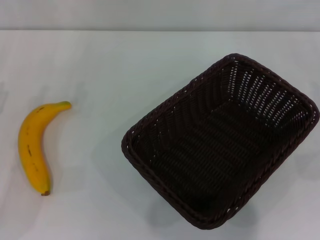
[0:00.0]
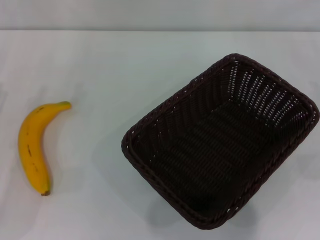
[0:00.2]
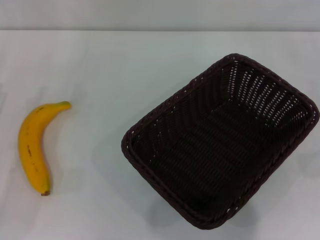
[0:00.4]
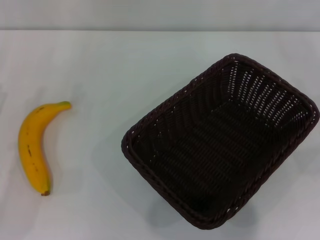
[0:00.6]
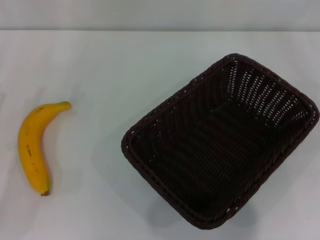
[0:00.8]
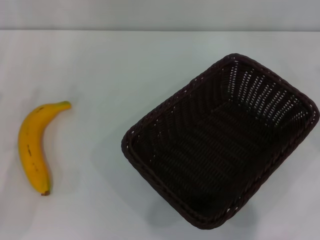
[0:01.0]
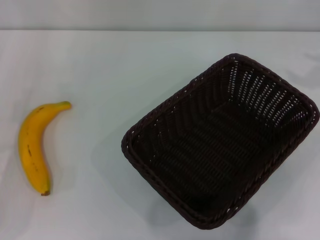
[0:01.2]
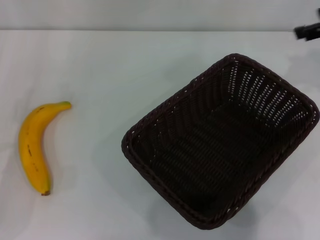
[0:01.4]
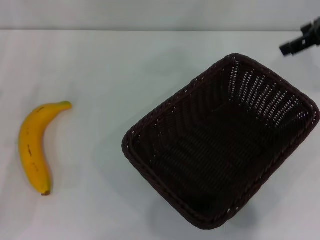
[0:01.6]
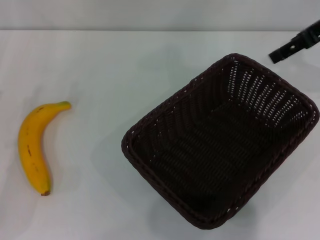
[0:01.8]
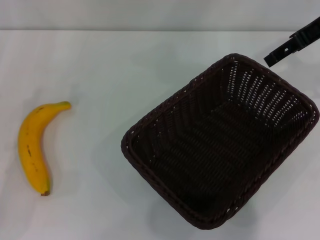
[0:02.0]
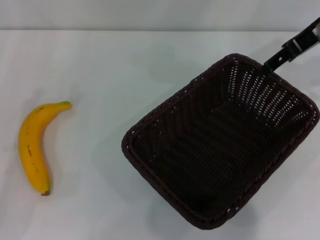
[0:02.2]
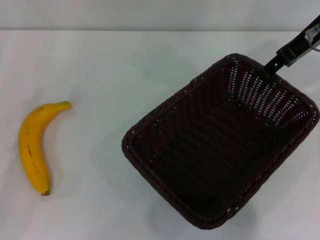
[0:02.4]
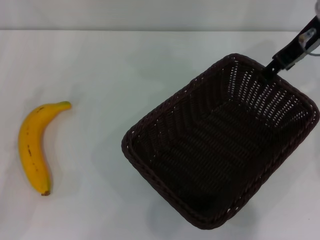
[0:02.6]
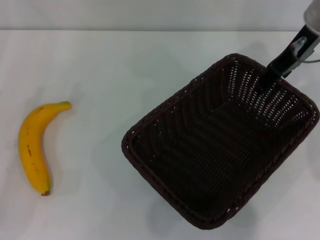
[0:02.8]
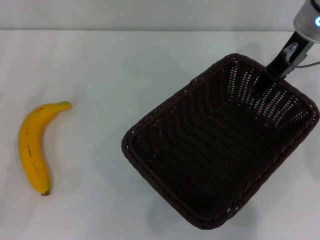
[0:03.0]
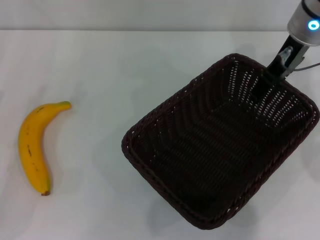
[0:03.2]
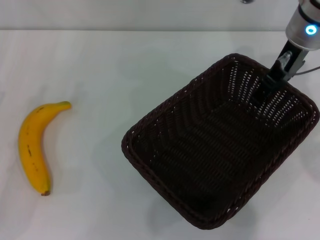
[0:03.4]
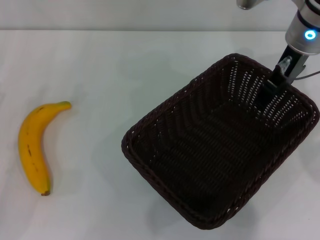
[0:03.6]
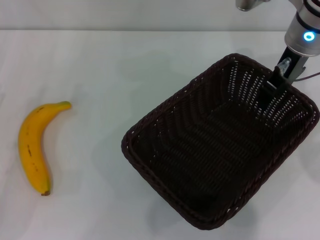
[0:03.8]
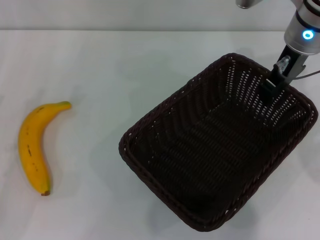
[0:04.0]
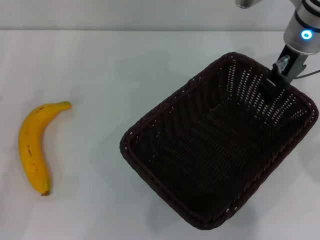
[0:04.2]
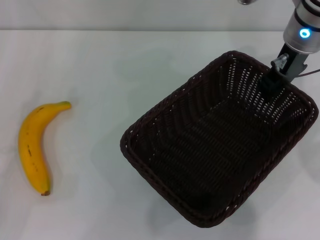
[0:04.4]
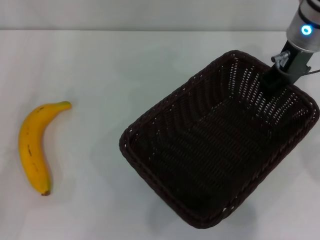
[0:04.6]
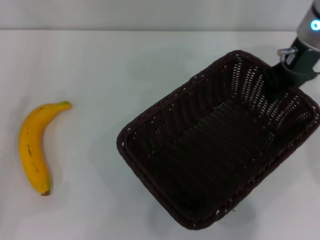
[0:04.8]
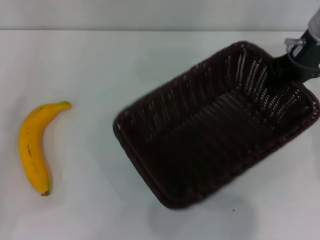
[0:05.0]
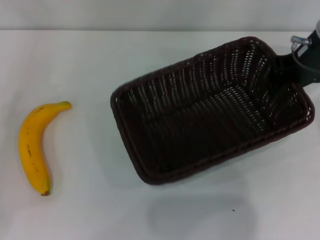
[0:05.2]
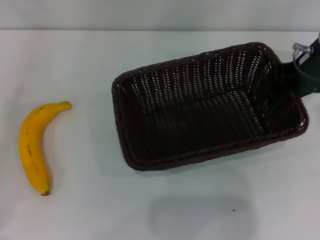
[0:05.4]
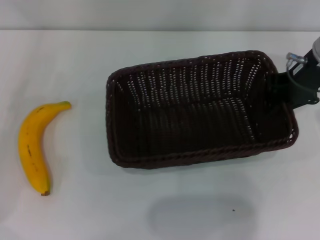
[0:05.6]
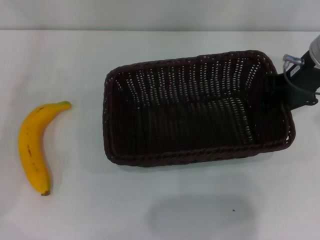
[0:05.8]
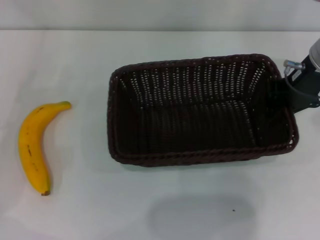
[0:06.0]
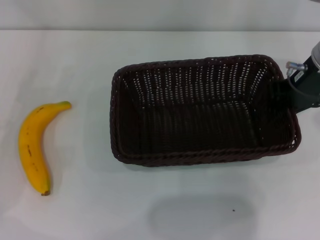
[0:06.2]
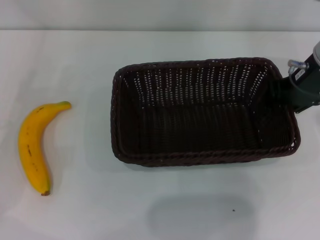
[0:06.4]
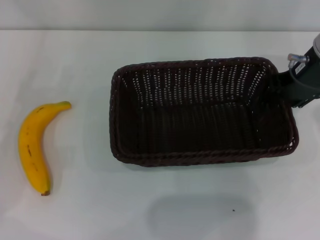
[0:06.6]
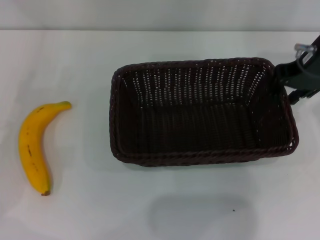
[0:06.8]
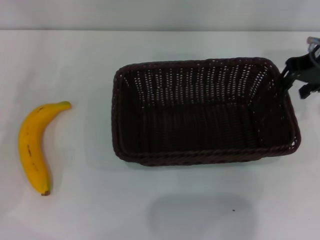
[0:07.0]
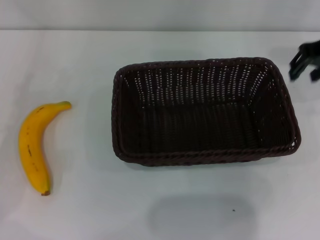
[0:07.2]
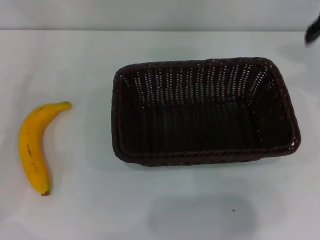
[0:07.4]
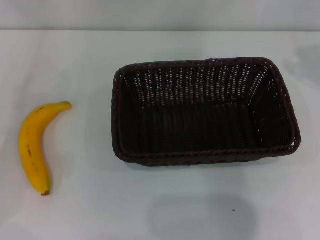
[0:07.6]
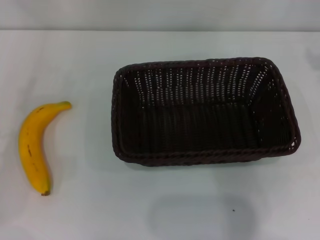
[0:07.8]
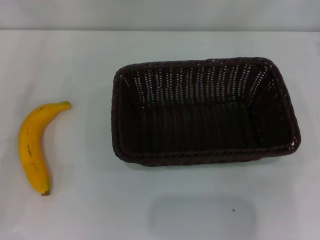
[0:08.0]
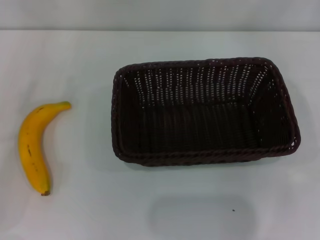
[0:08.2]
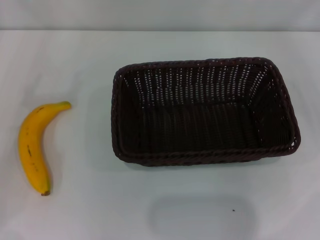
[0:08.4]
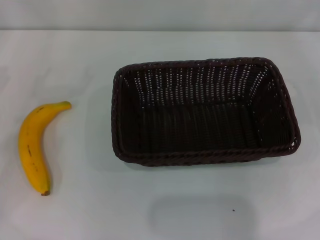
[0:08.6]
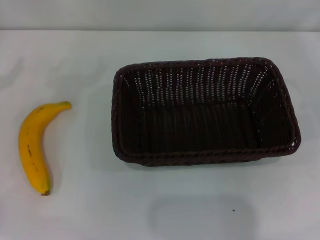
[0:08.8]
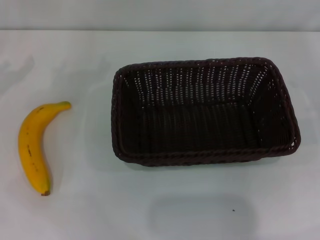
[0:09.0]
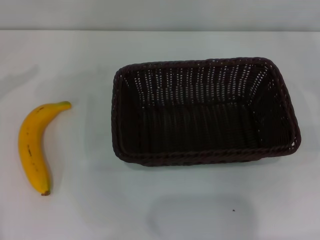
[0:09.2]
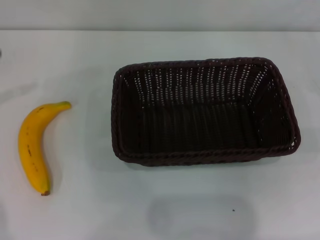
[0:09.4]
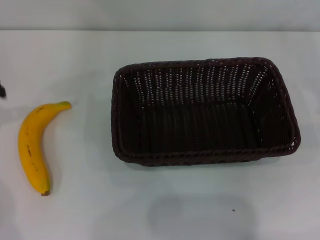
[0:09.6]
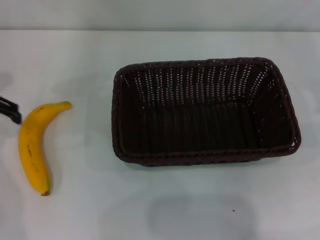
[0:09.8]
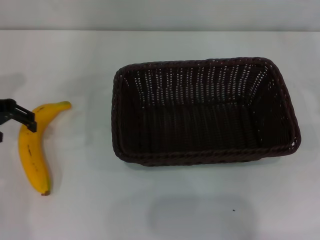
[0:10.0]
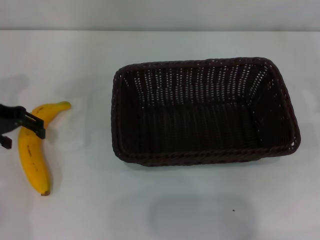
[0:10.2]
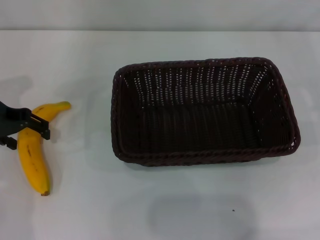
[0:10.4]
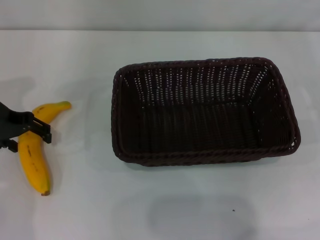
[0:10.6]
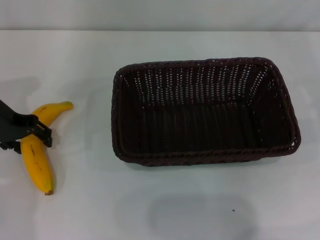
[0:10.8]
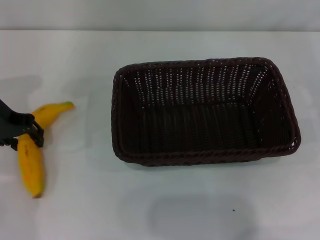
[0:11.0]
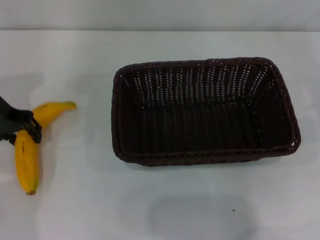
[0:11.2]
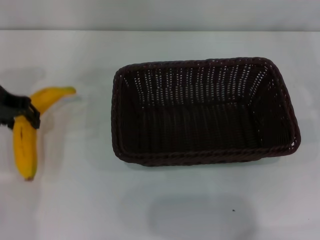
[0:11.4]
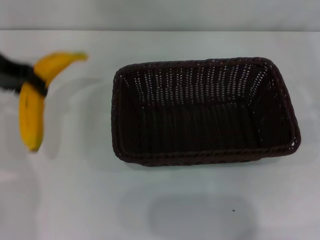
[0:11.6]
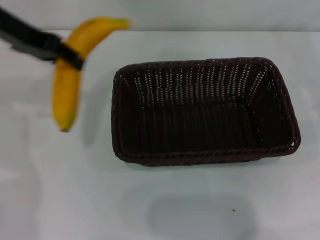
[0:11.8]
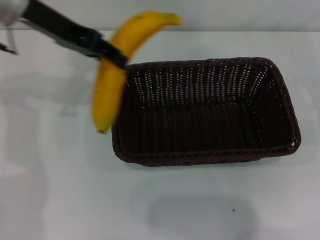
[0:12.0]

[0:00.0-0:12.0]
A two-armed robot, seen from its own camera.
Step, 0:00.0 to 0:04.8: Pick up the dark basket with the right gripper.
Step, 0:05.2 to 0:06.6: Place the dark basket in the center of view with the right gripper.
Step, 0:06.8 to 0:11.4: Pick up the banana with the left gripper.
0:00.0 to 0:01.6: The right gripper travels upward, to the left and forward by some 30 cm.
0:01.6 to 0:03.0: The right gripper heads to the left, covering roughly 10 cm.
0:03.0 to 0:04.4: The right gripper closes up.
0:04.4 to 0:06.0: The left gripper shifts by roughly 5 cm. Meanwhile the right gripper ends up approximately 5 cm from where it was.
0:06.0 to 0:07.6: The right gripper travels upward and to the right by about 15 cm, and opens up.
0:09.0 to 0:10.4: The left gripper goes some 10 cm to the right.
0:10.4 to 0:12.0: The left gripper travels upward and to the right by some 15 cm, and closes.

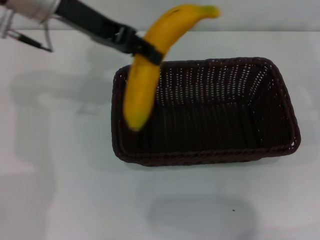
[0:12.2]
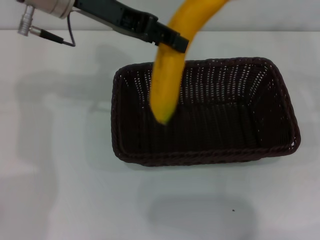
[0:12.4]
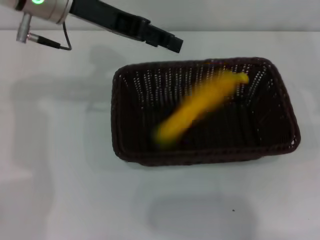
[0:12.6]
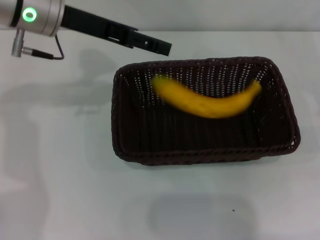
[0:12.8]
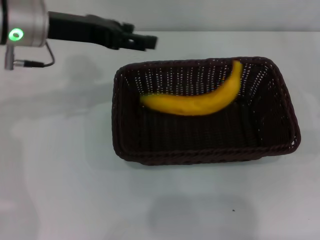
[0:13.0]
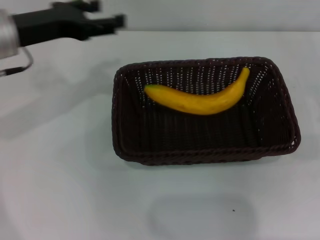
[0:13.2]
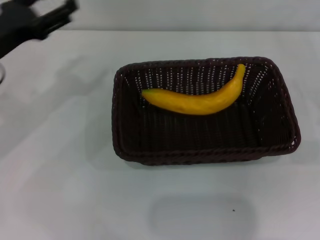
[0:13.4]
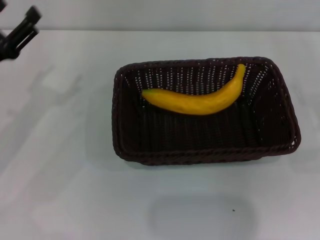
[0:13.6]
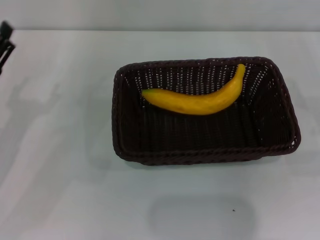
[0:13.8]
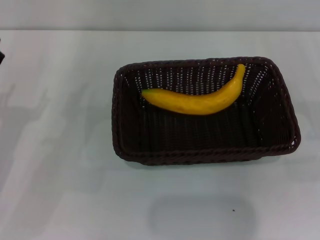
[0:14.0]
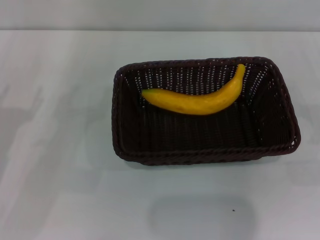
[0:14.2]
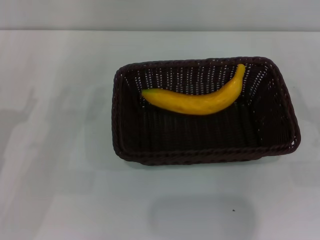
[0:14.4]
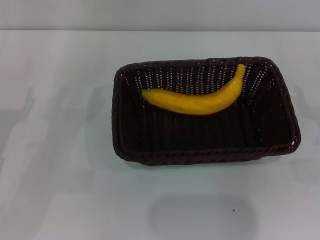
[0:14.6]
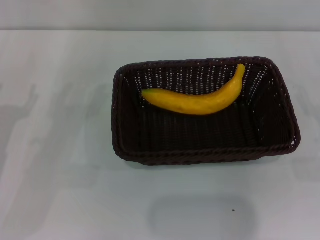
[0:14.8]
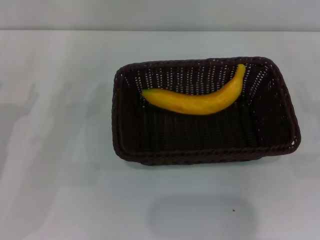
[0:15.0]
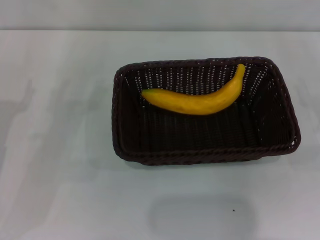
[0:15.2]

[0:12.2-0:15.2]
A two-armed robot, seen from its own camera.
0:12.2 to 0:13.8: The right gripper ends up about 5 cm from where it was; the left gripper moves downward, to the left and backward, approximately 25 cm, and opens.
